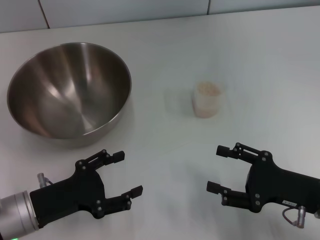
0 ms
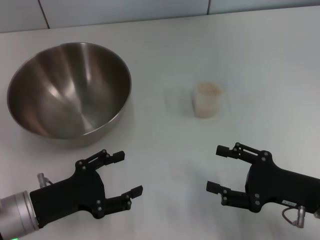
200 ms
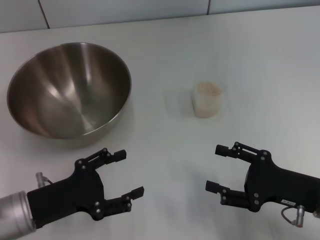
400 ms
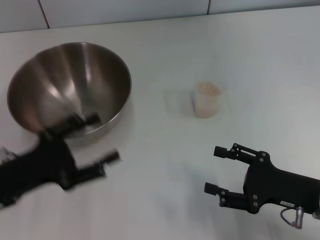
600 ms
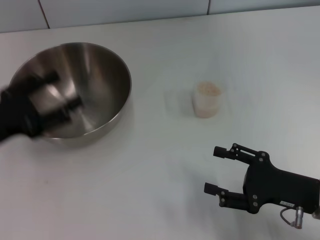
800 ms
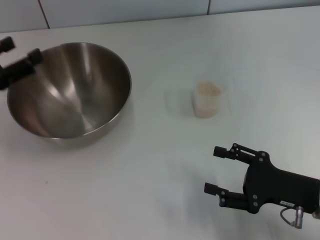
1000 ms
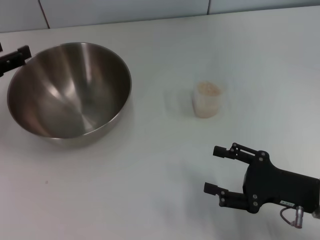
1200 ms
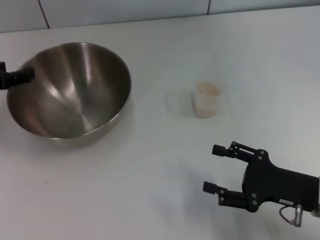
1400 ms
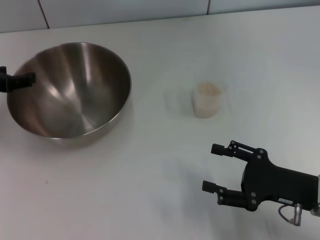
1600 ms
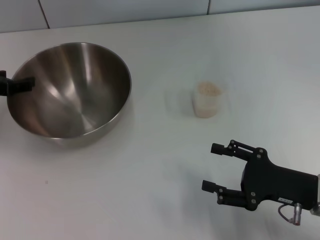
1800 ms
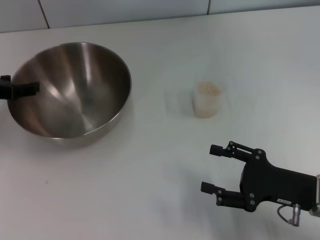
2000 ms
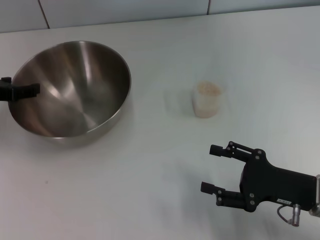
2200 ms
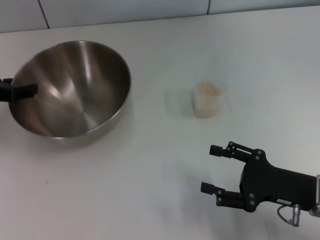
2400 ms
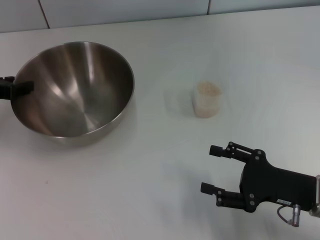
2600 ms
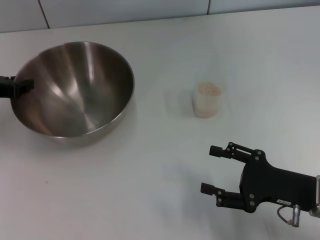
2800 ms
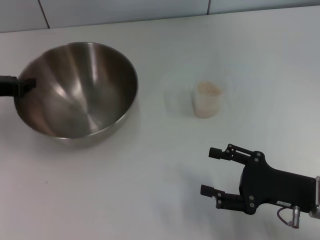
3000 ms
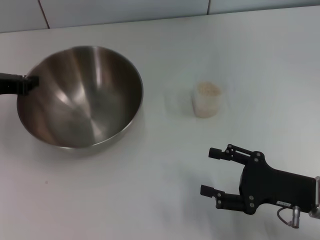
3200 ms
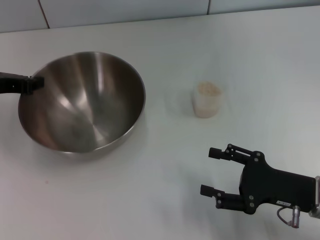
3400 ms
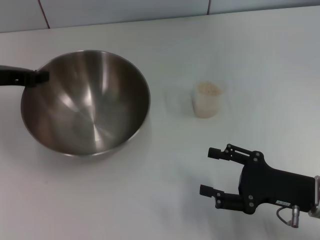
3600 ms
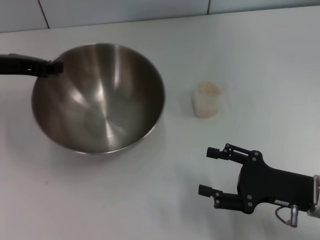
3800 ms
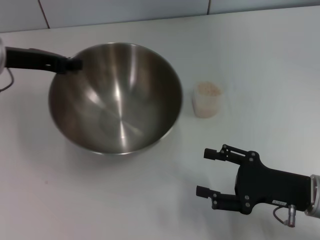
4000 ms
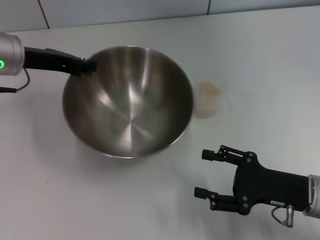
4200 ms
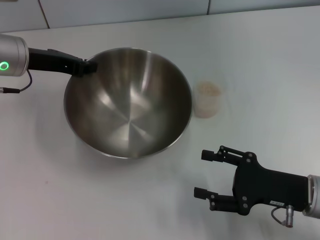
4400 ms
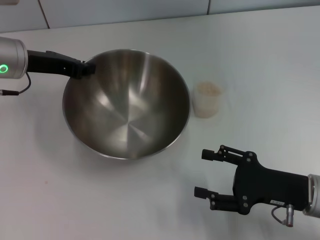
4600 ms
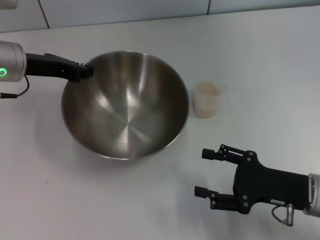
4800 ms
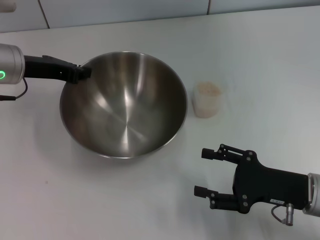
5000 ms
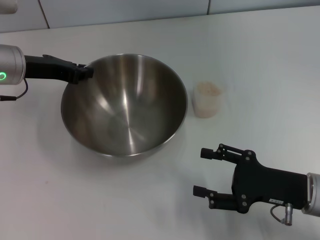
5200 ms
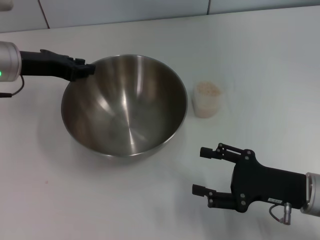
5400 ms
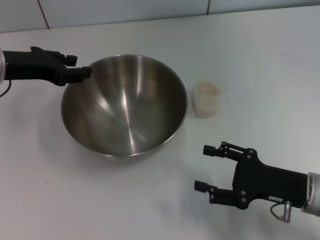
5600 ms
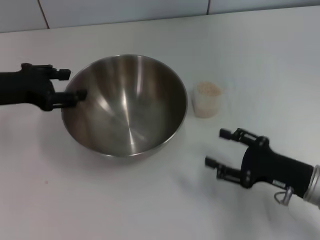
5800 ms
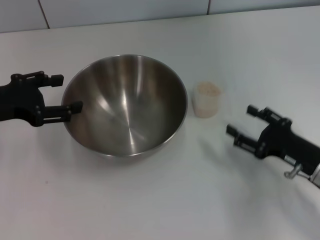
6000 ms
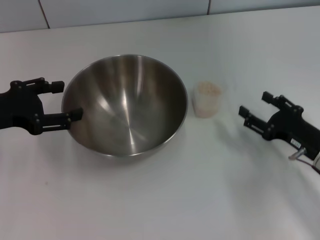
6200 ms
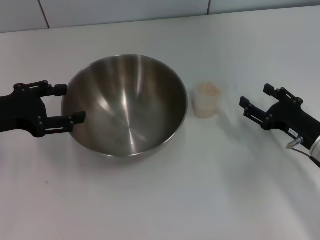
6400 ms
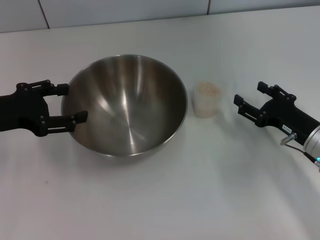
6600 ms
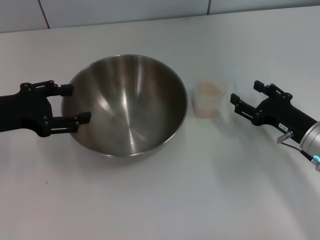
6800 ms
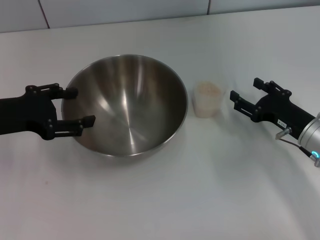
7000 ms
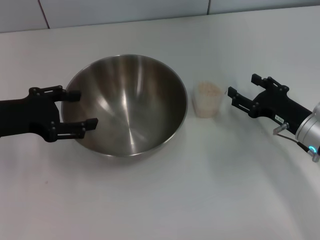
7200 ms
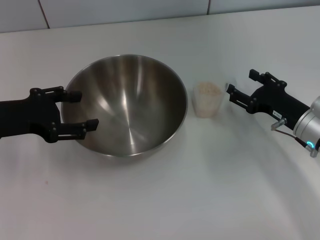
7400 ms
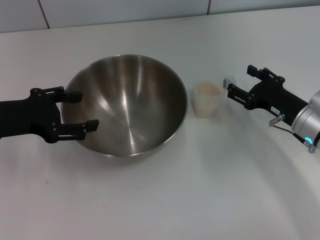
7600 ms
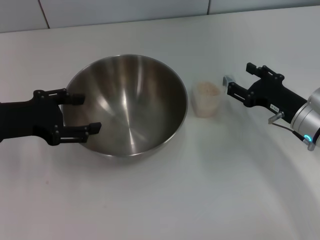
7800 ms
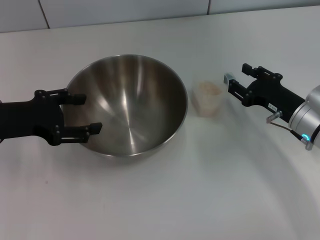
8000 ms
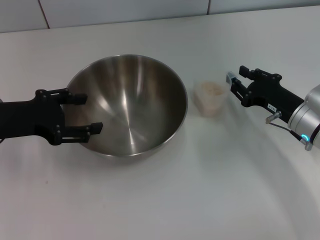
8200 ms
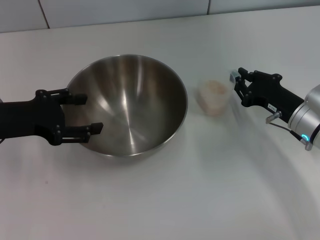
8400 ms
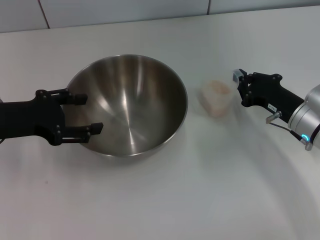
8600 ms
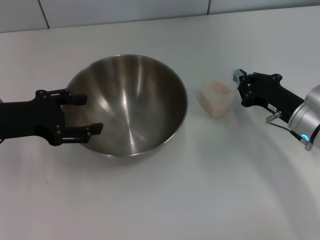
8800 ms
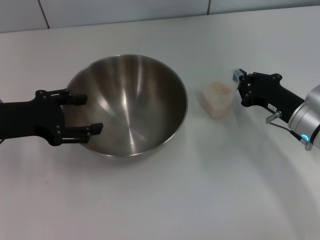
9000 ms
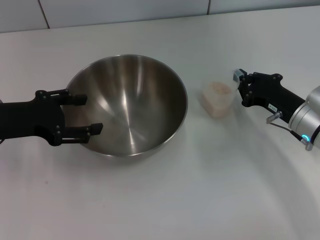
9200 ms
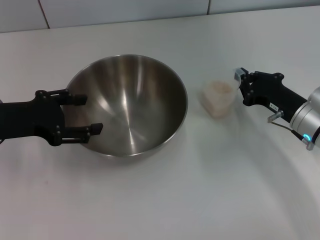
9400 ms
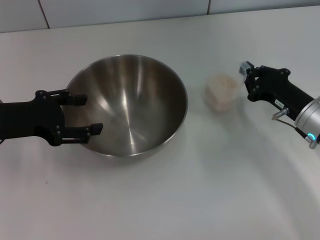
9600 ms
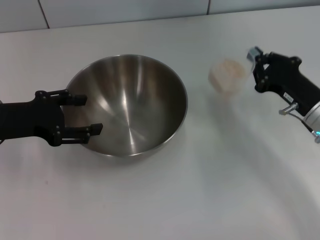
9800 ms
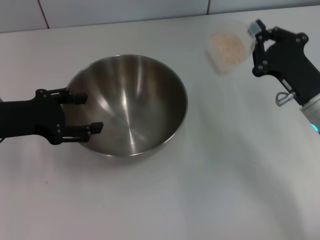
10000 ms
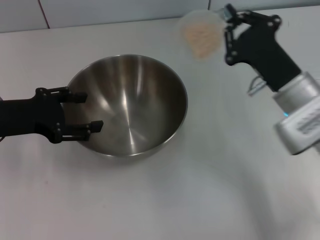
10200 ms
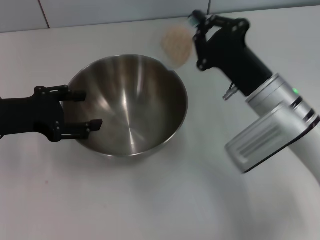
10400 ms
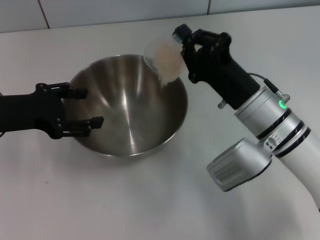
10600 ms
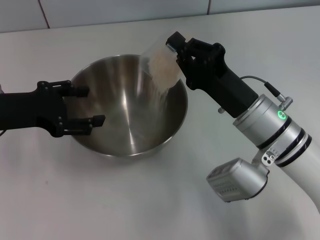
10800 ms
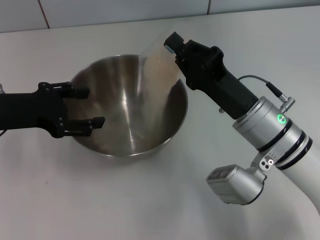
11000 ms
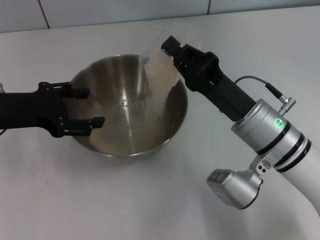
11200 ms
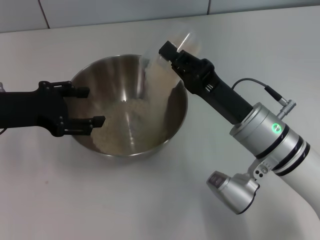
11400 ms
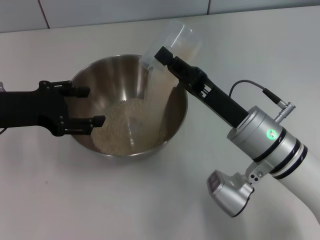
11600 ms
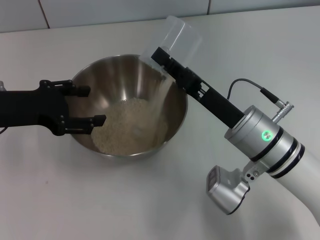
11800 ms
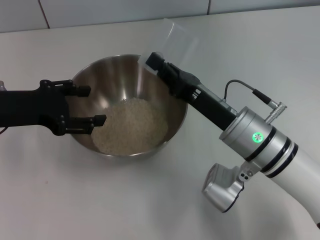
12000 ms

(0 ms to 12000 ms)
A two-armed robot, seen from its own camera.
Task of the whole recording: Place the bowl in the middle of the table with one hand and pour the rice from the grain cup into it with the other hand.
Step, 0 ms - 3600 ms: Pick up the bowl with the left gripper.
Step, 3800 ms - 5600 ms: Place the bowl in the center of view with the left gripper.
Step, 5800 ms - 9800 ms: Pick up the cup with rice in it with the right gripper.
0 ms - 1600 ms: The left gripper is displaced forward, upward and to the left by some 20 cm.
1600 ms - 3000 ms: The left gripper closes up.
3000 ms - 4400 ms: The left gripper travels to the right by some 10 cm.
4400 ms - 6000 ms: The left gripper is displaced backward and to the left by approximately 10 cm, and opens.
6000 ms - 7600 ms: The right gripper is displaced forward by approximately 10 cm.
7600 ms - 9000 ms: The right gripper closes its fingers.
9000 ms - 10400 ms: The right gripper moves to the left and upward, some 10 cm.
10400 ms - 12000 ms: The right gripper shifts by roughly 5 cm.

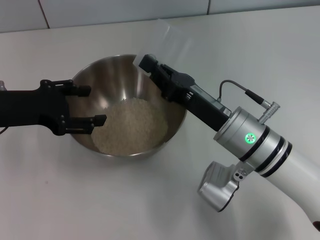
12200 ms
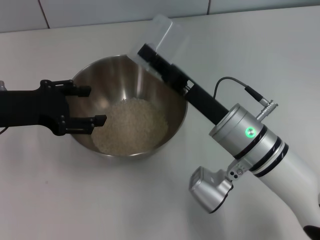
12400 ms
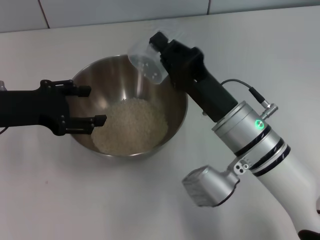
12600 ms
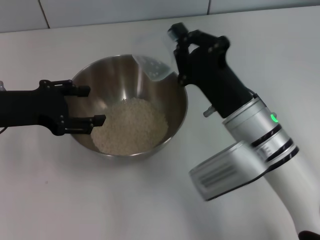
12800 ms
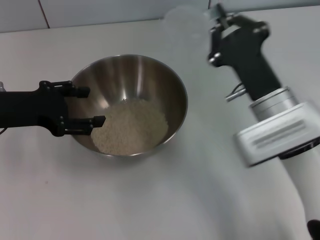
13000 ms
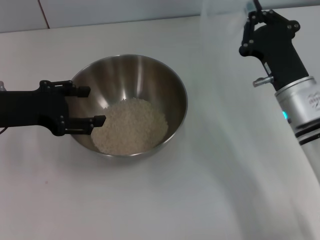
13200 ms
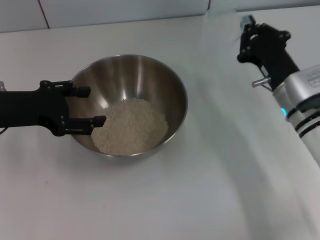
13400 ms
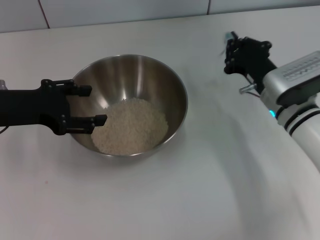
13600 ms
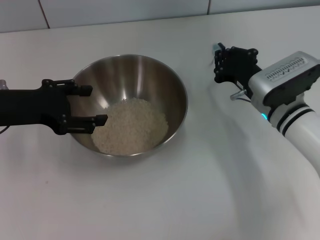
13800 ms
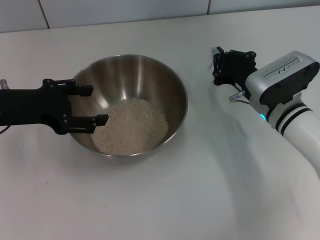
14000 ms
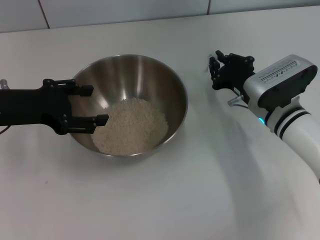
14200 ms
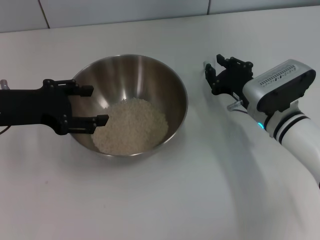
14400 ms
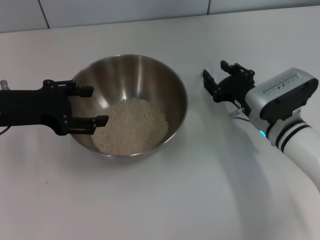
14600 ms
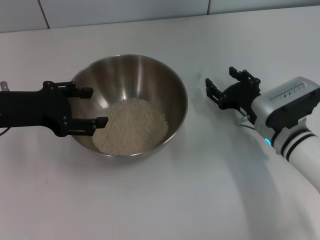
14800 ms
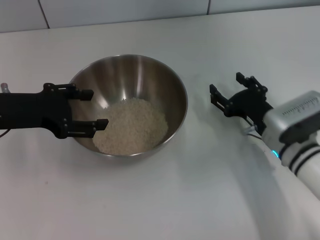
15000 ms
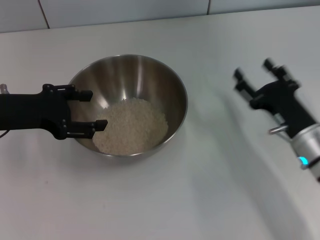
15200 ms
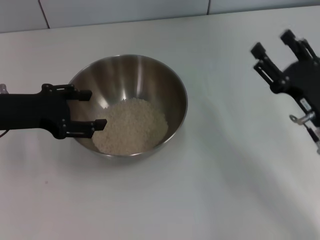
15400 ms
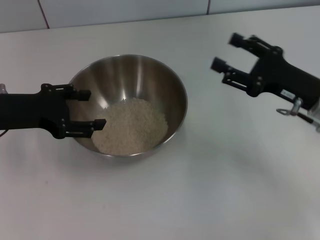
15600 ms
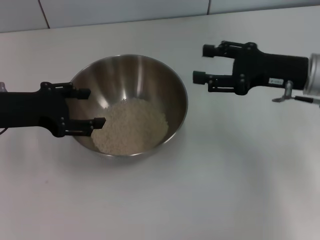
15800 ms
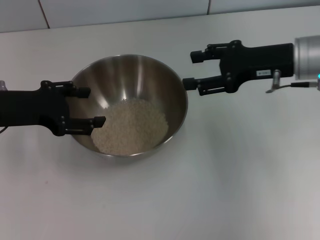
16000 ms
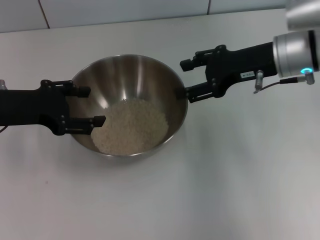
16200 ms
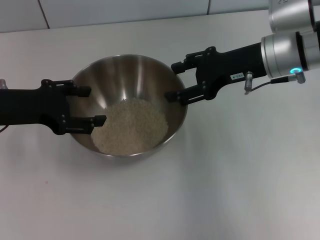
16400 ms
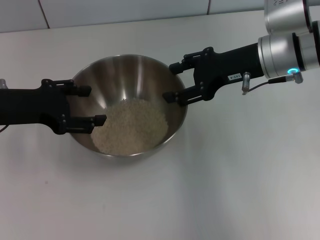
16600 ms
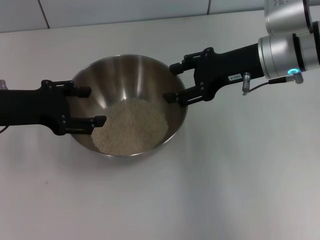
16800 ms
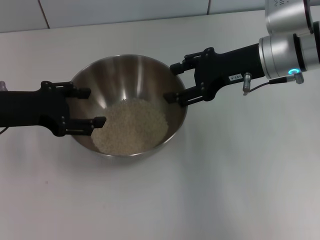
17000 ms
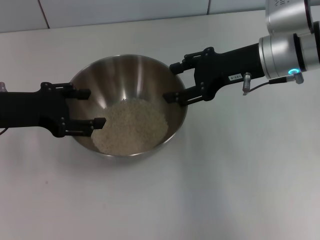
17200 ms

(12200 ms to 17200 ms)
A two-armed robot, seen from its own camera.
Task of the whole recording: Place the bowl in the middle of the table with one hand and pour the rice from the grain cup into it with the other hand.
Step, 13200 ms - 15000 ms: Place the cup on the table with the right gripper.
12200 ms - 13800 ms: The right gripper goes about 10 cm to the right and forward.
13800 ms - 15600 ms: The right gripper travels to the right and upward by some 10 cm, and opens up.
15600 ms - 17200 ms: The right gripper heads upward, forward and to the left, covering approximately 15 cm.

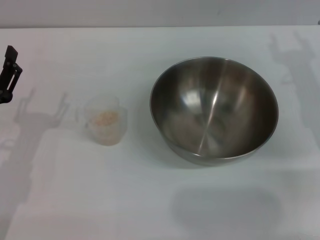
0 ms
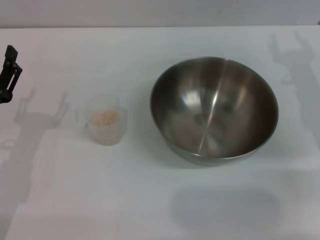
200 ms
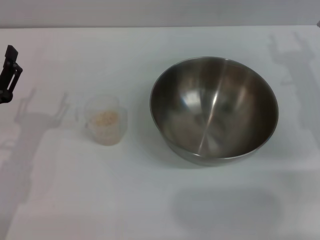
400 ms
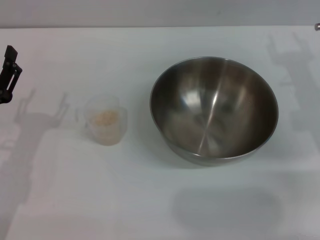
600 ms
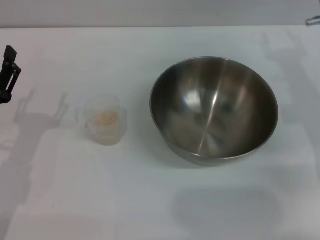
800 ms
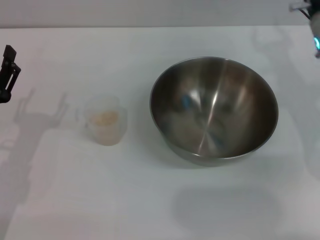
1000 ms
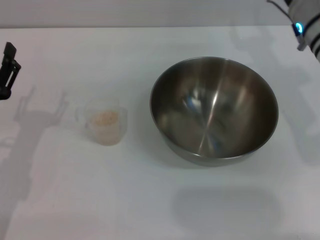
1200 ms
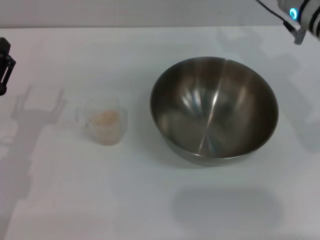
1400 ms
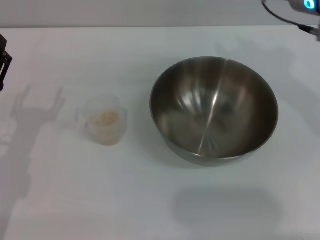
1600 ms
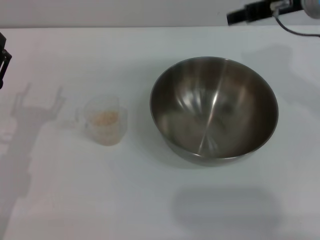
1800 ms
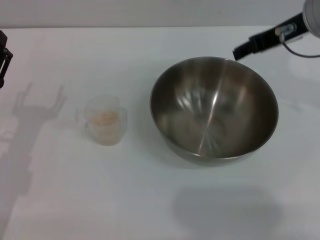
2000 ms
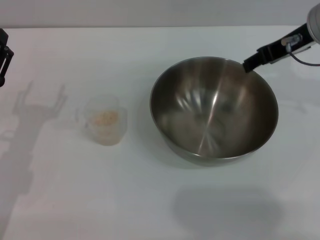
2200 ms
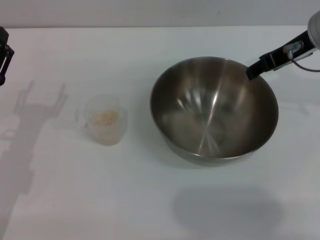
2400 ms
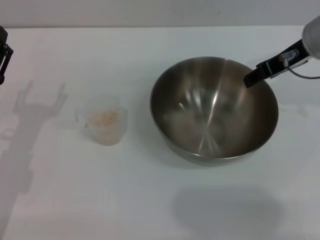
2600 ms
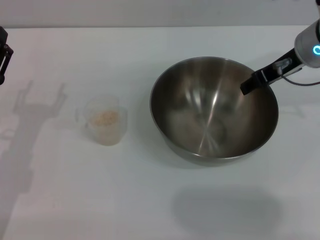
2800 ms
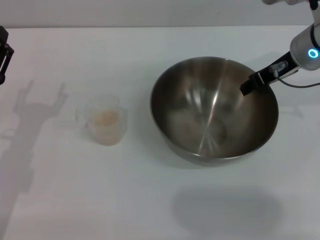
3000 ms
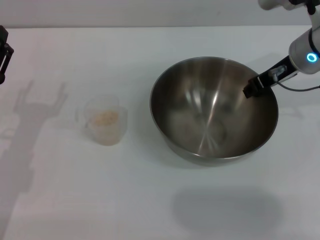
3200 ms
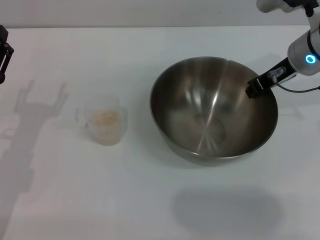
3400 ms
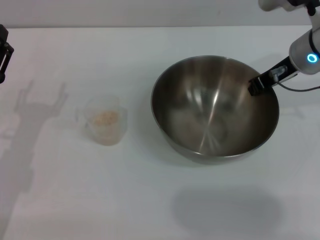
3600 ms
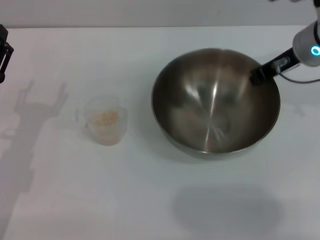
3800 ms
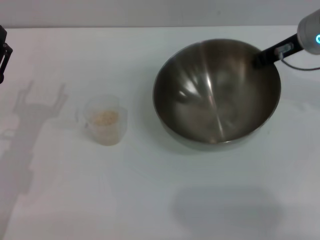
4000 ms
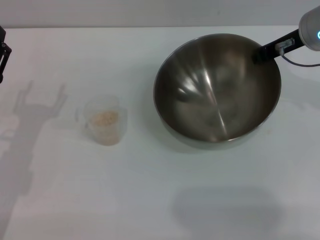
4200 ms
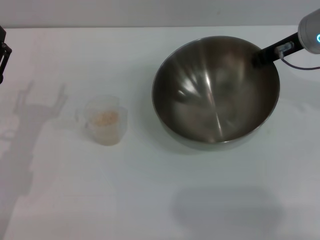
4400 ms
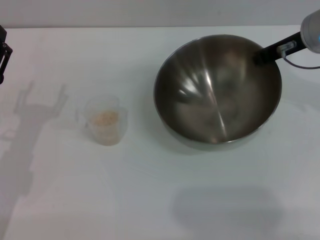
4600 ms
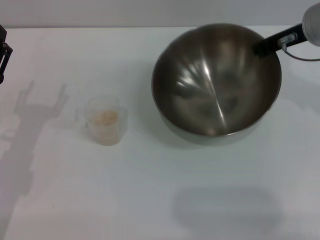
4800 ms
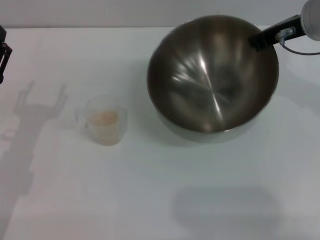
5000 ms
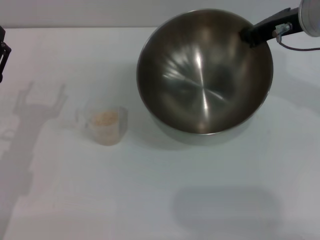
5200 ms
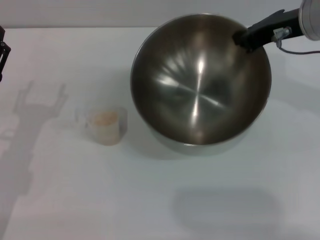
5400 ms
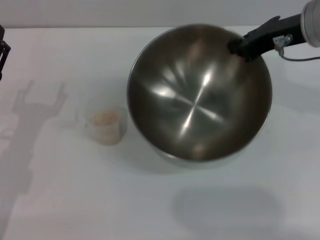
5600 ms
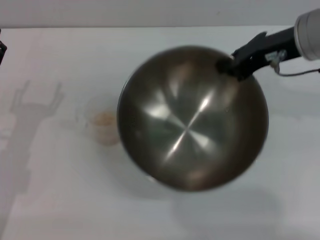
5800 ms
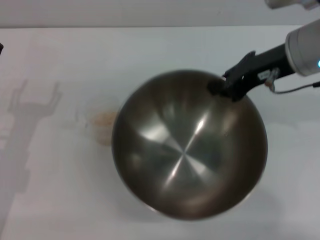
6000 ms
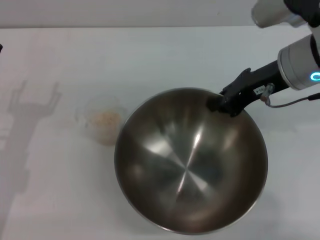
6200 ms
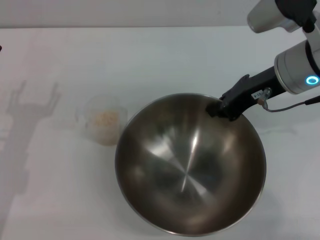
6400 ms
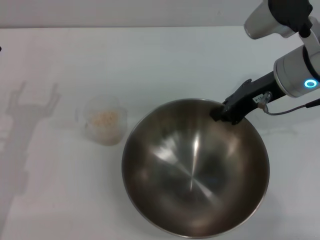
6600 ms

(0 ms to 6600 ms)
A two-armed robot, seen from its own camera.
Task of the whole recording: Place the bowl in the middle of the table with one hand and pour the rice from the grain cup into it with the other hand.
Step, 0 ms - 4200 ms: Pick up the bowl with the right gripper.
0 ms - 1600 ms: The right gripper moves upward and to the left, about 15 cm.
1600 ms - 3200 ms: The right gripper is displaced downward by roughly 5 cm.
3200 ms - 5000 ms: The right gripper closes.
5000 ms - 6600 ms: The right gripper changes place by some 5 cm.
